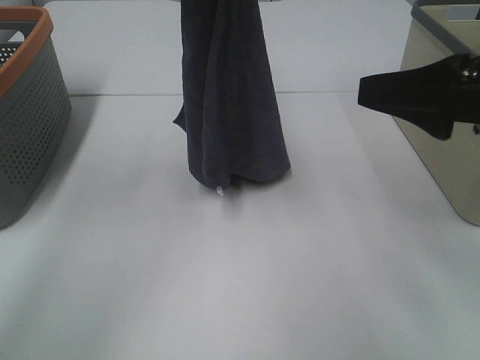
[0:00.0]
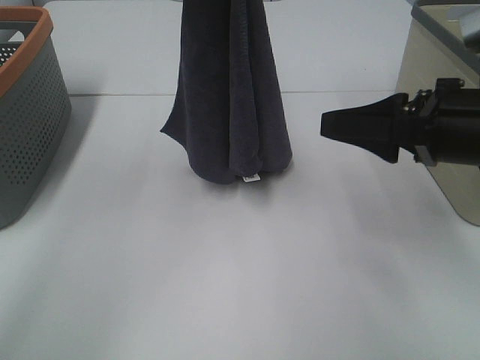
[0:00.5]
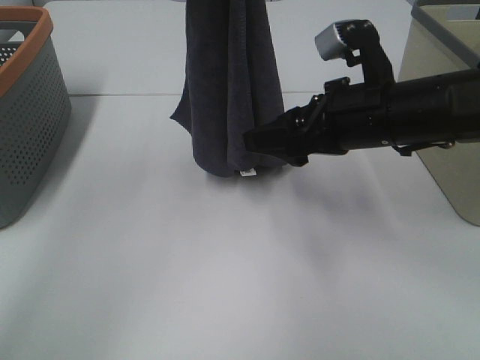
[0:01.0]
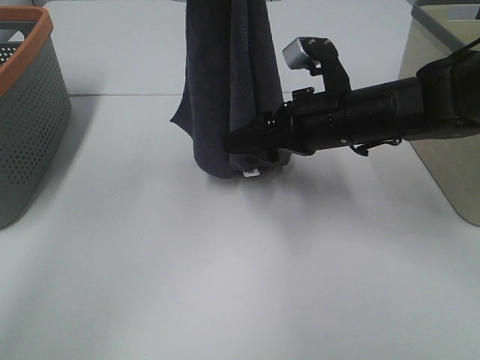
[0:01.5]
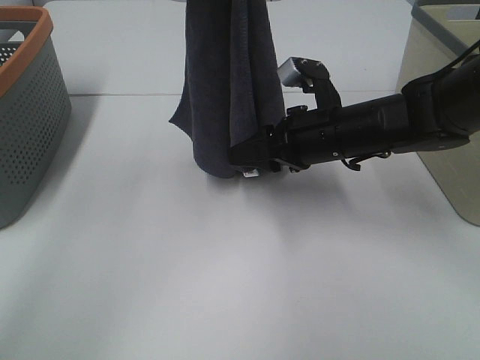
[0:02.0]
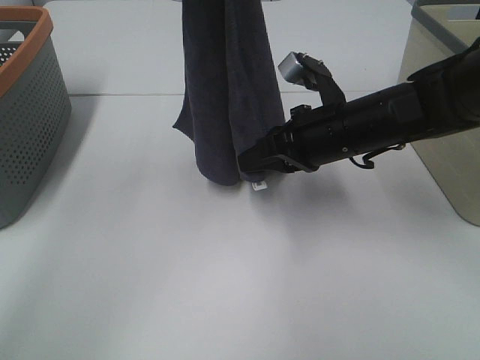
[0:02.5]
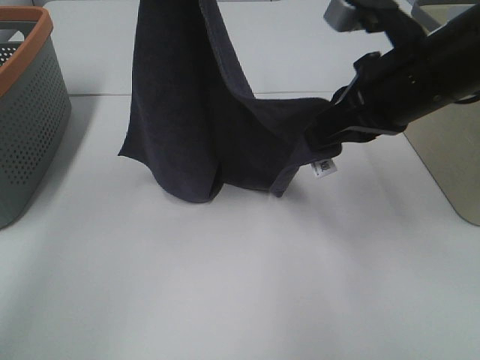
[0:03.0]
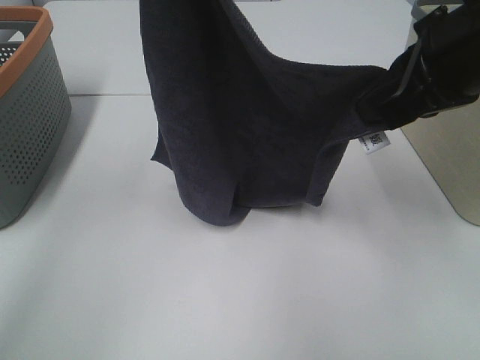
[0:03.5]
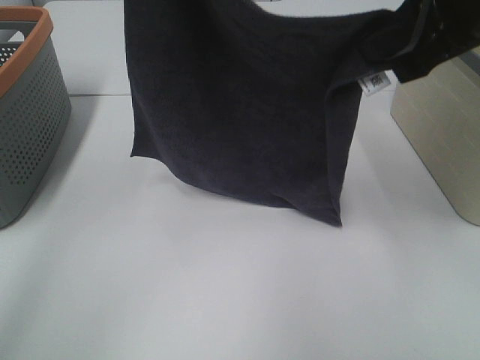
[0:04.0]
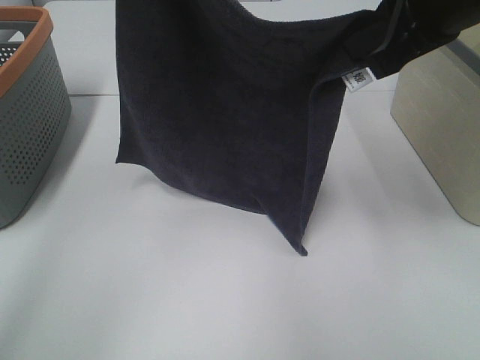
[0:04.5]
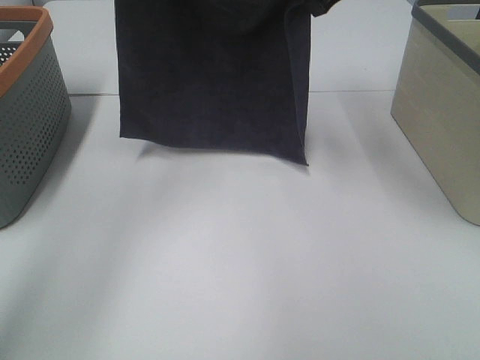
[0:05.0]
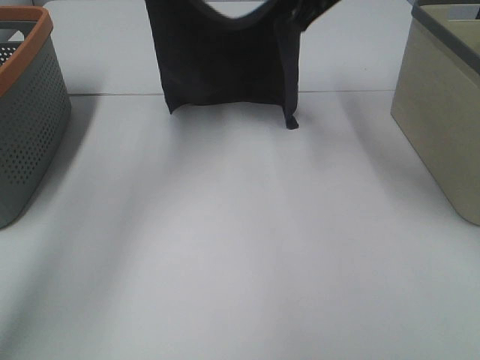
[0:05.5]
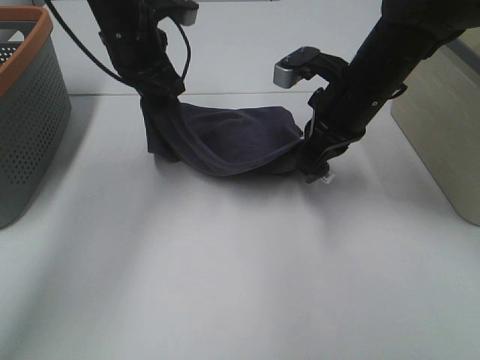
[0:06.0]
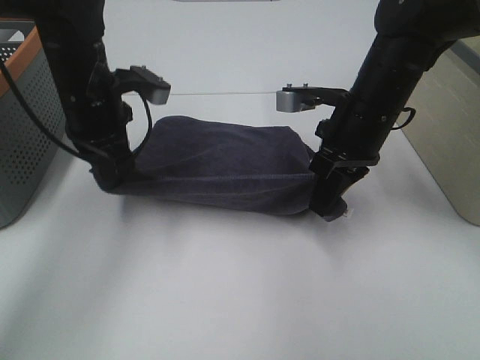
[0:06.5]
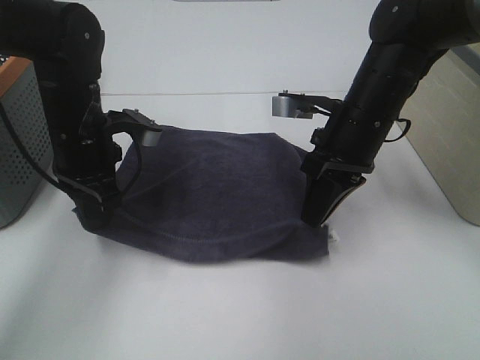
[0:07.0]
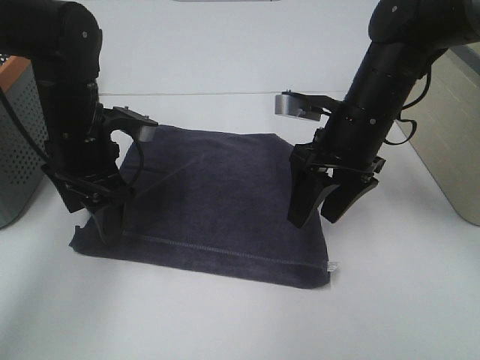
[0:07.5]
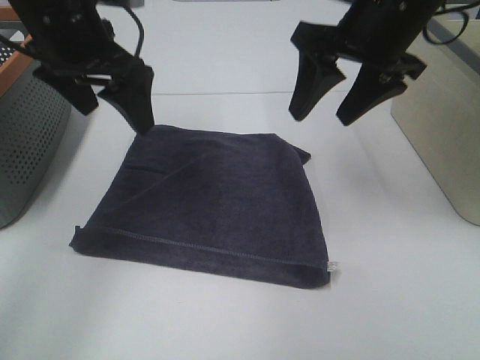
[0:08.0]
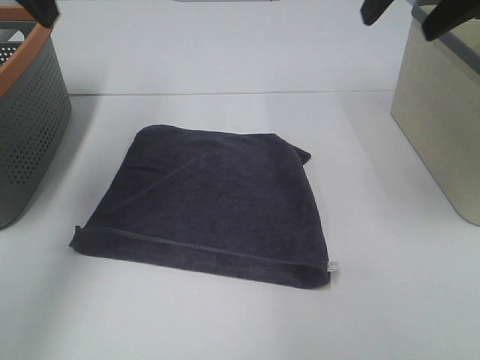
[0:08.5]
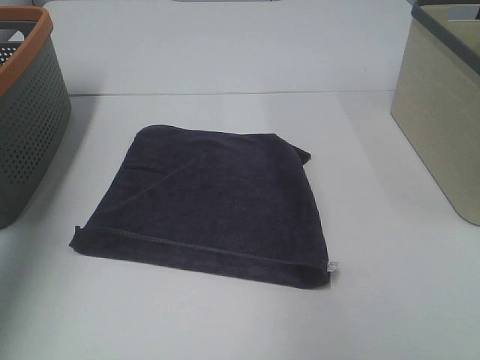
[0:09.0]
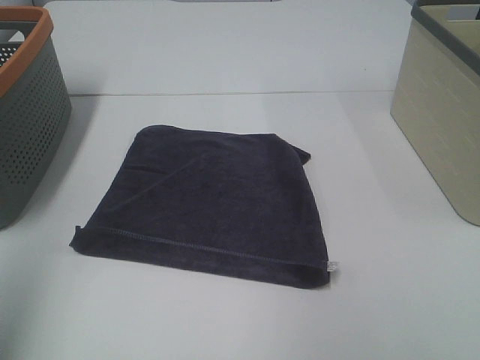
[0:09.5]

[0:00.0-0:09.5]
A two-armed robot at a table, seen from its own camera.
Task of the whole recording: Remove the towel and place it.
Step, 0:02.0 to 0:03.0: Left hand: spread the grey towel flat on the table.
Step, 0:02.0 to 0:03.0: Right hand: spread the grey towel flat on the table.
0:00.0 to 0:02.0: The right gripper travels downward, forward and to the left by approximately 20 cm, and closes up.
0:02.0 to 0:04.0: The right gripper moves upward, about 20 cm, and closes its fingers.
0:04.0 to 0:05.5: The right gripper is displaced forward by approximately 20 cm. The left gripper heads forward and downward, covering some 15 cm.
0:05.5 to 0:07.5: Both grippers move downward and backward, about 20 cm. The right gripper opens its fingers; the left gripper opens.
0:07.5 to 0:09.5: The right gripper shifts some 35 cm backward, upward and to the right, while the left gripper shifts some 40 cm backward, upward and to the left.

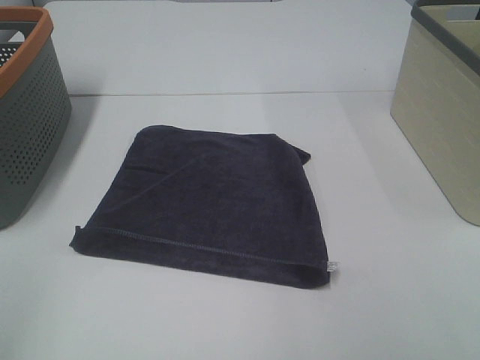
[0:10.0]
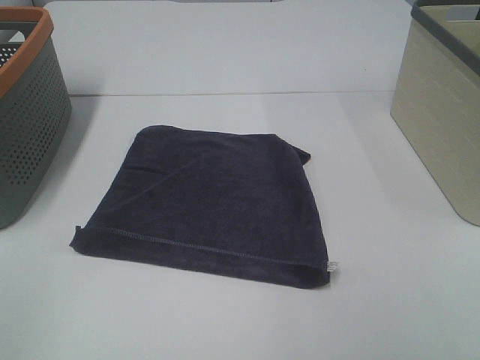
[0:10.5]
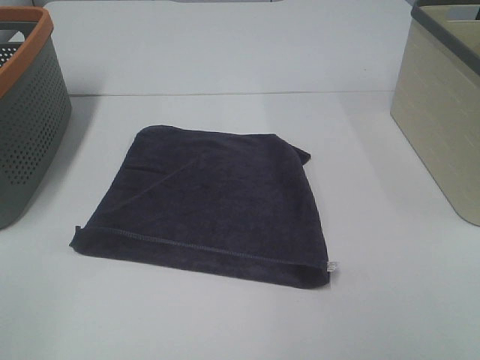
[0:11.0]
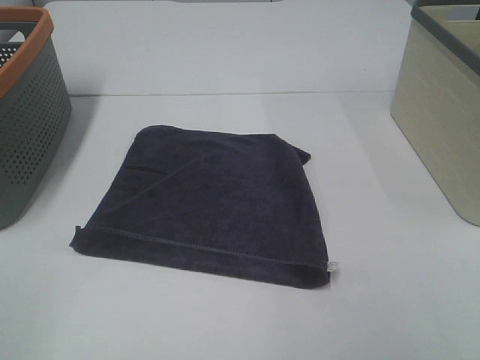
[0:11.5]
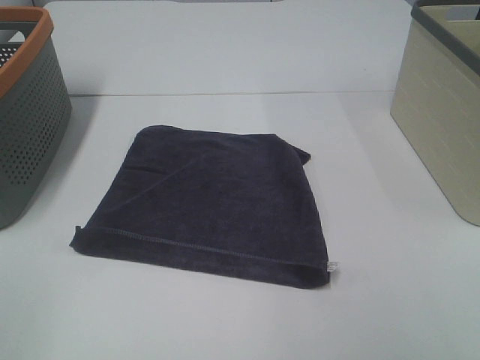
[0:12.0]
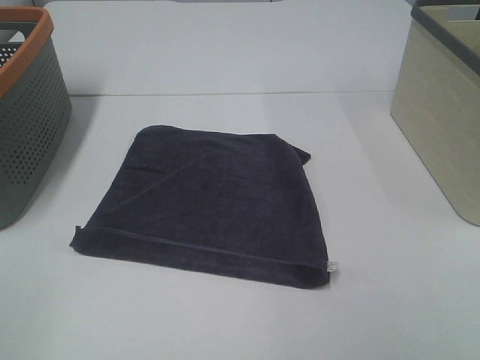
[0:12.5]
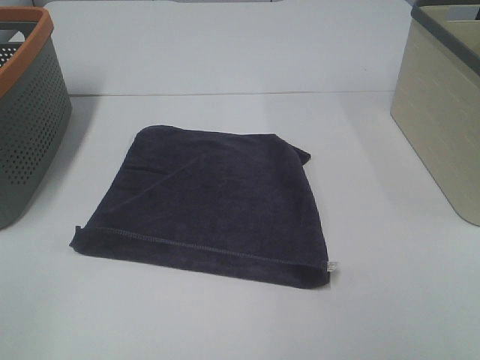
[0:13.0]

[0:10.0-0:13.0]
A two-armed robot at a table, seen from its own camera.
Task of the whole recording: Remove the towel and place it.
0:11.5 to 0:13.0: Neither gripper changes place.

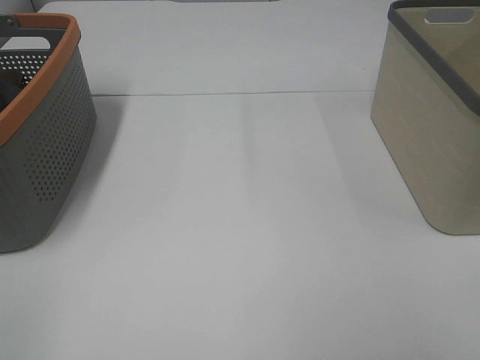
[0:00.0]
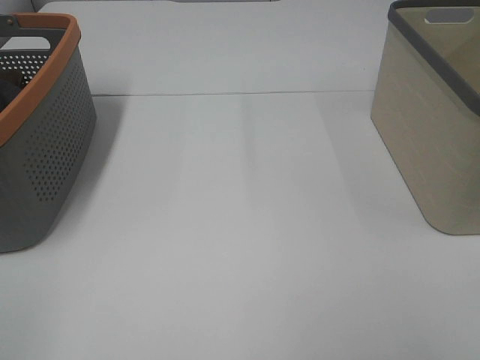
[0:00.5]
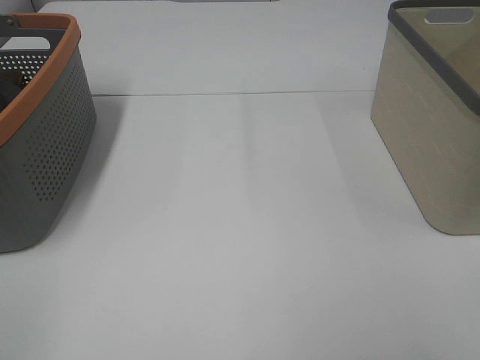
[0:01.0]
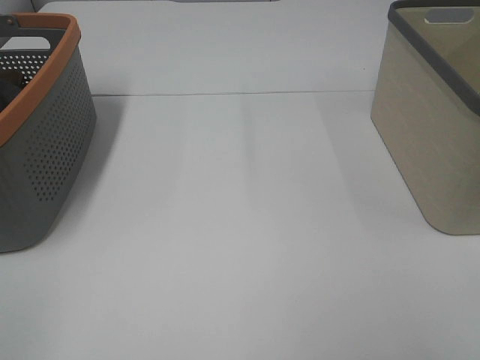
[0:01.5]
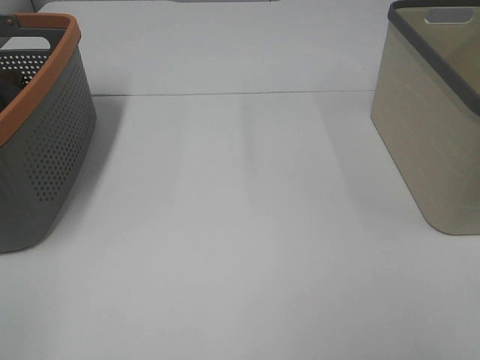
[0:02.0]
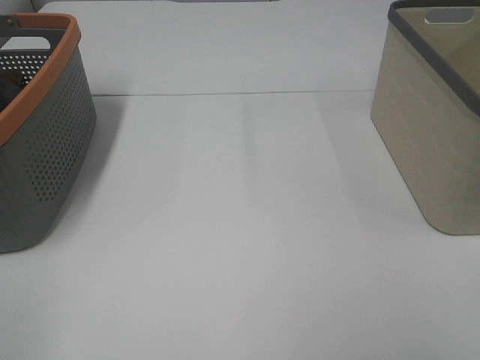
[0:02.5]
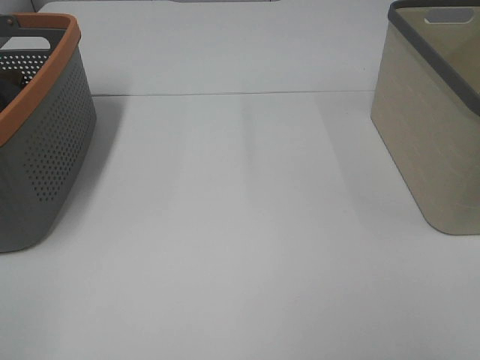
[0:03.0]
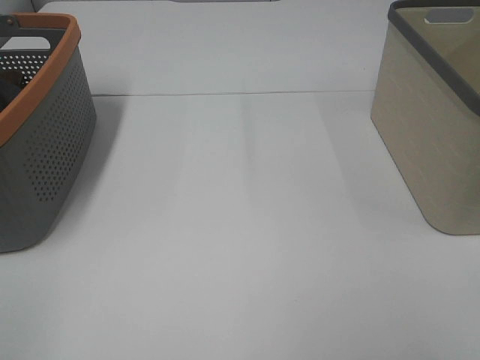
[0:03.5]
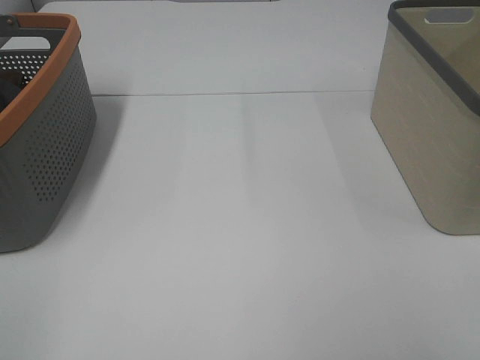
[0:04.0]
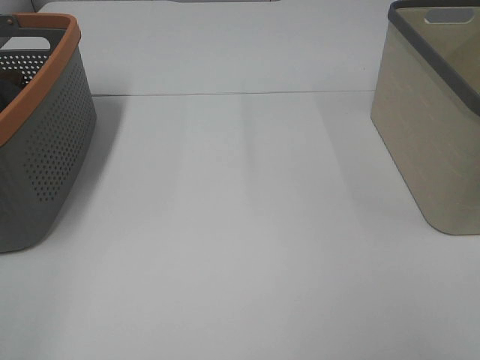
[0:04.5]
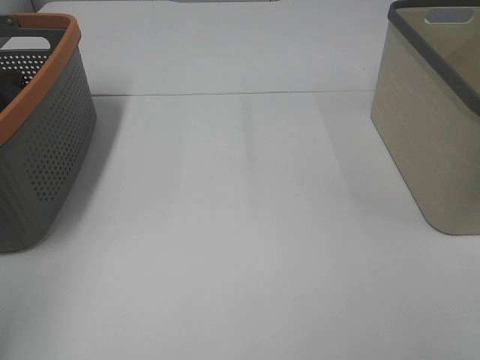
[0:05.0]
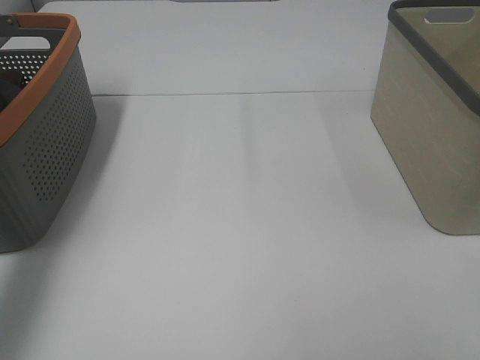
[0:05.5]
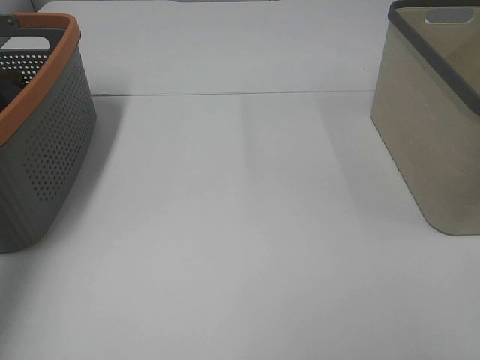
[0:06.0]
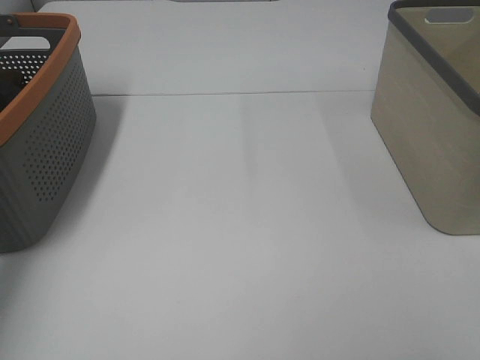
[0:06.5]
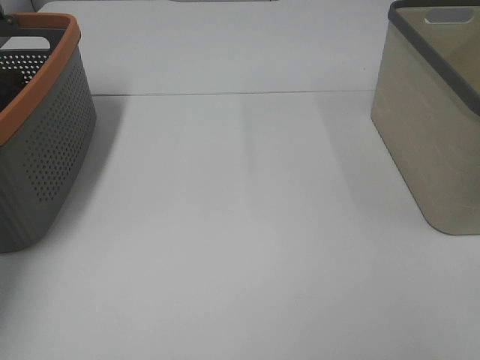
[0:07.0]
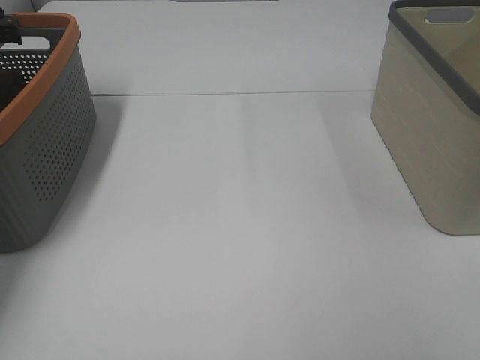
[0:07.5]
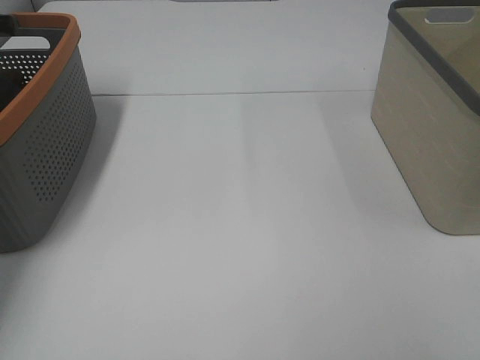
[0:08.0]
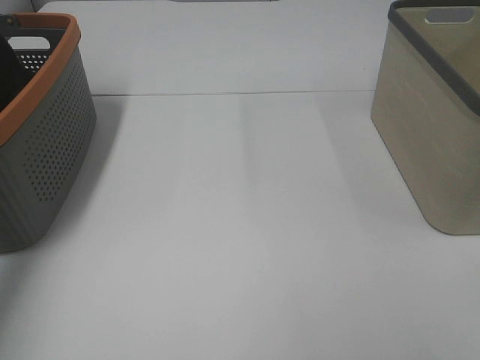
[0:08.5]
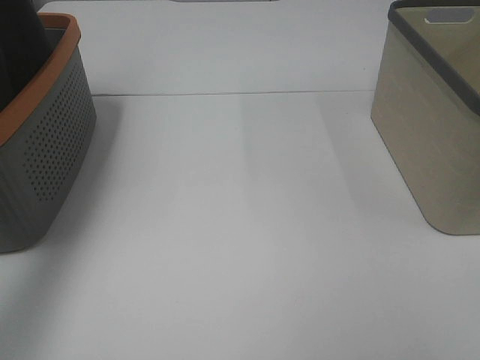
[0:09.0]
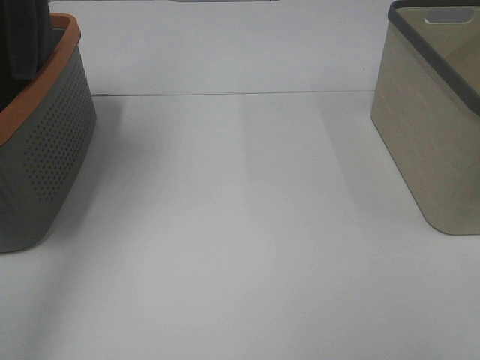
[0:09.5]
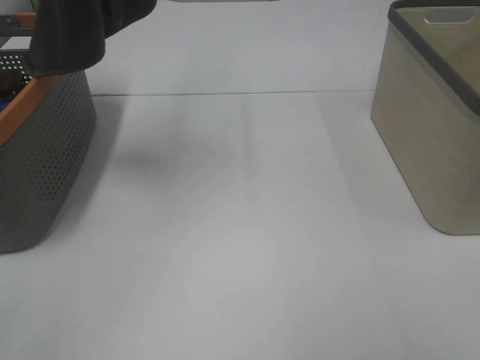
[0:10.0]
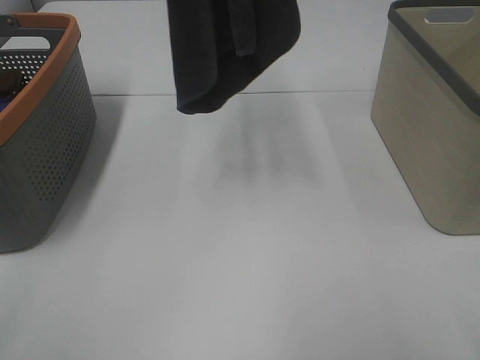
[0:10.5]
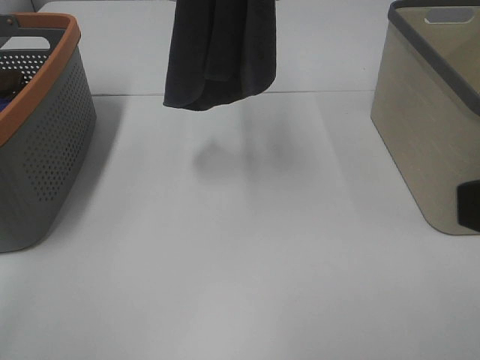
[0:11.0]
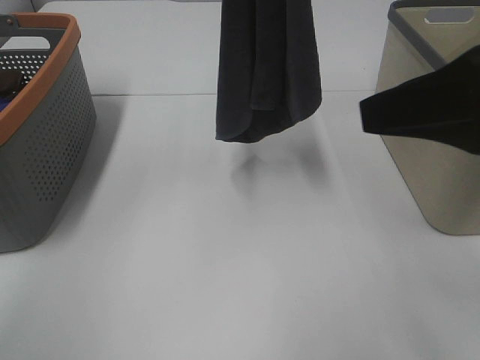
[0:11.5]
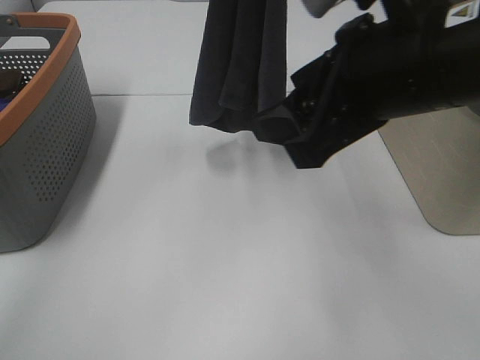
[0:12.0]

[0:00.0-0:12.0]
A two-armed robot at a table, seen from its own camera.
Task of the whole recording: Remove the towel and place it.
0:00.0 to 0:04.0: Neither gripper changes place.
0:04.0 to 0:06.0: The left gripper is displaced forward by approximately 35 cm.
0:08.0 to 0:10.0: The left gripper travels upward, to the right and backward by roughly 40 cm.
0:10.0 to 0:12.0: The right gripper is displaced forward and to the left by some 25 cm. Meanwhile the left gripper is displaced to the right and downward by roughly 15 cm.

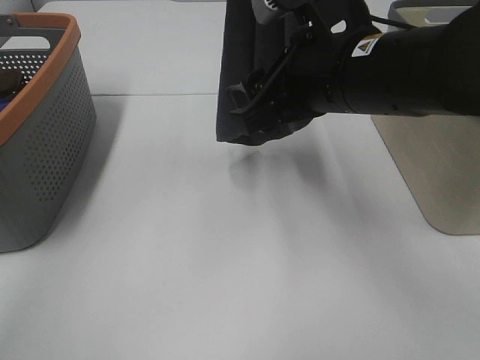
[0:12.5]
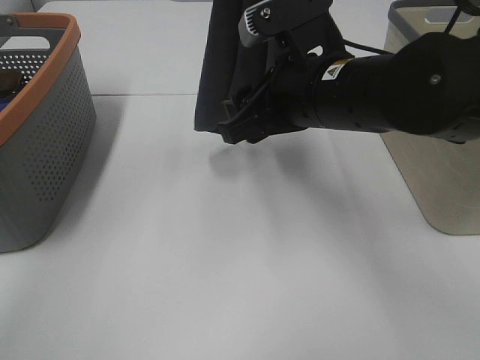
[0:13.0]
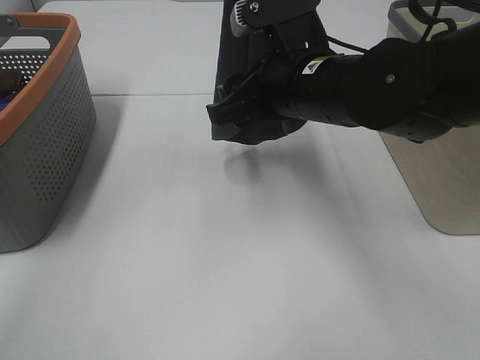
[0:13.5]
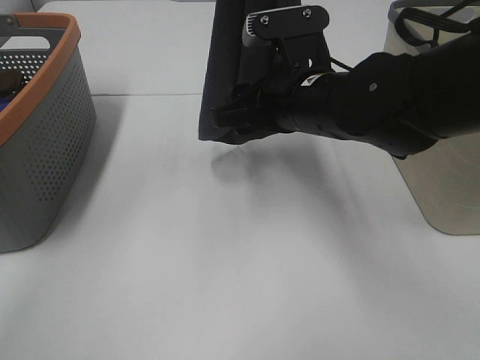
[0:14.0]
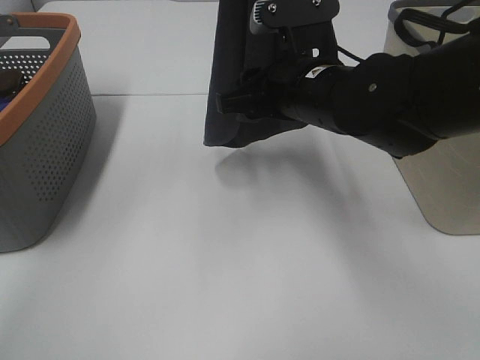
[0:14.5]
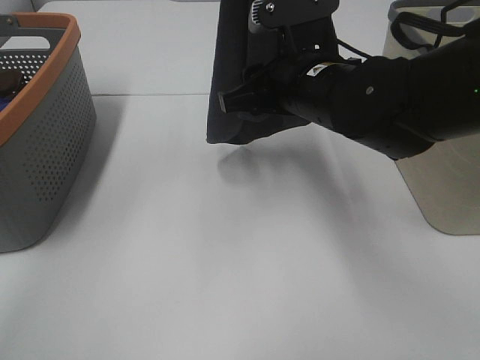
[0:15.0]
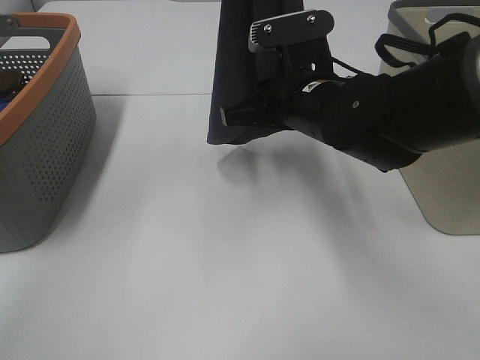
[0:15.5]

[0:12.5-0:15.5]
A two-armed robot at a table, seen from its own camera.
Task of the whole recording: Remove the towel and place it.
Step, 0:12.5 to 0:14.5: Right hand: grab a corner of the grey towel and straighten it.
0:12.5 to 0:14.0: The right gripper goes some 5 cm downward.
0:14.0 to 0:15.5: The right gripper closes up.
